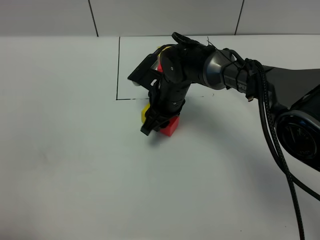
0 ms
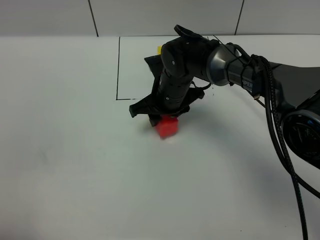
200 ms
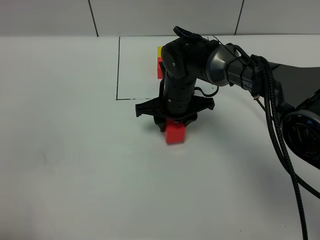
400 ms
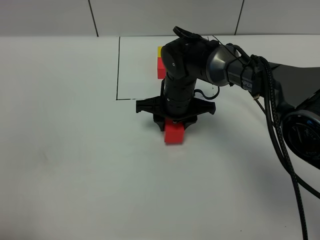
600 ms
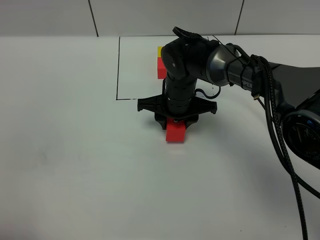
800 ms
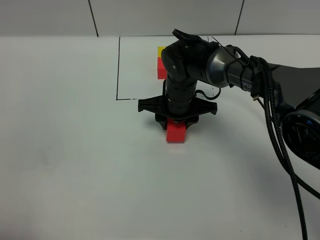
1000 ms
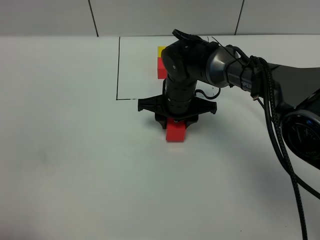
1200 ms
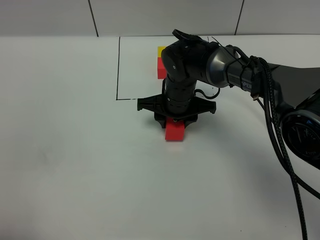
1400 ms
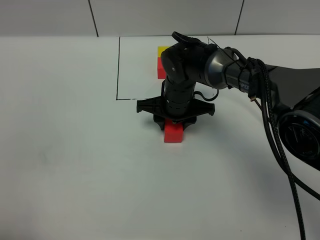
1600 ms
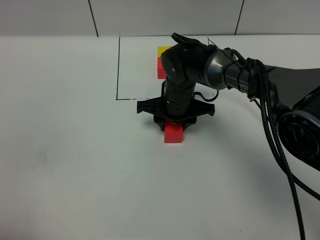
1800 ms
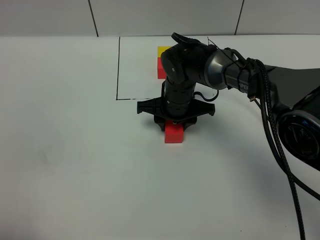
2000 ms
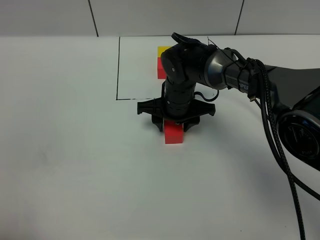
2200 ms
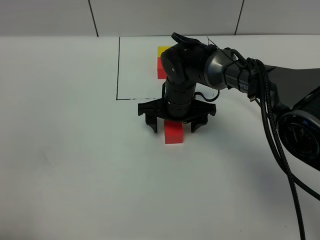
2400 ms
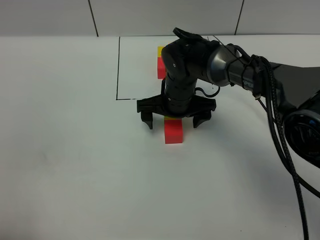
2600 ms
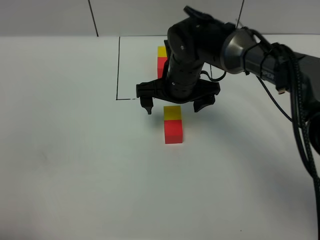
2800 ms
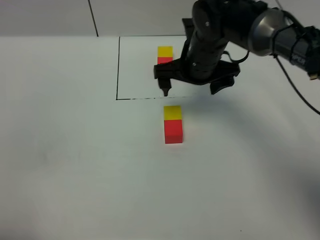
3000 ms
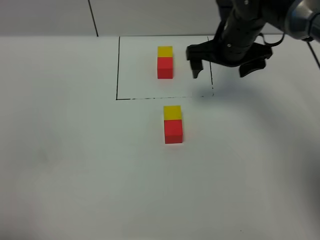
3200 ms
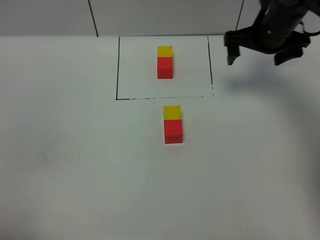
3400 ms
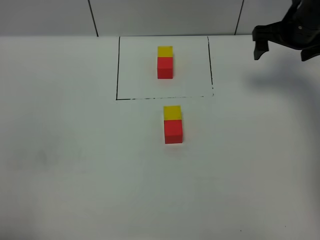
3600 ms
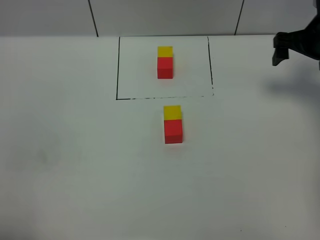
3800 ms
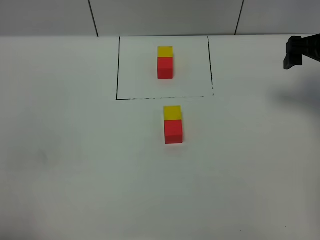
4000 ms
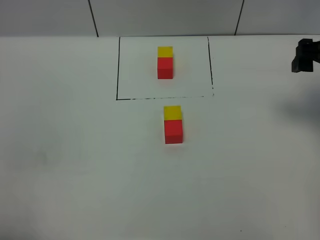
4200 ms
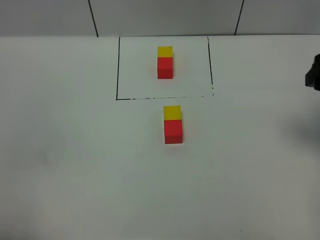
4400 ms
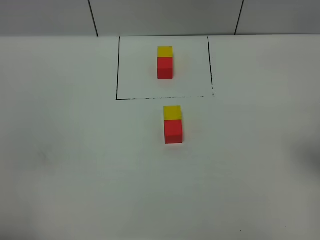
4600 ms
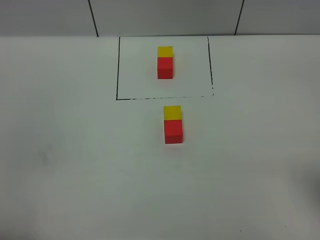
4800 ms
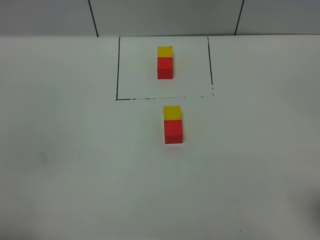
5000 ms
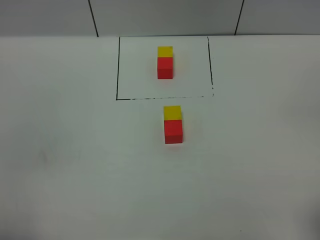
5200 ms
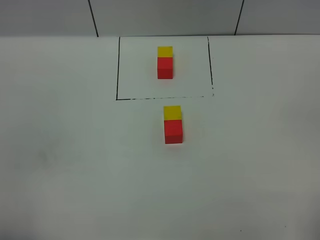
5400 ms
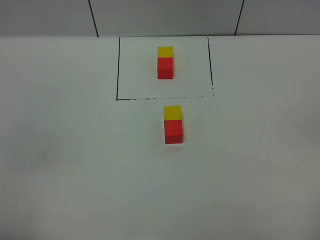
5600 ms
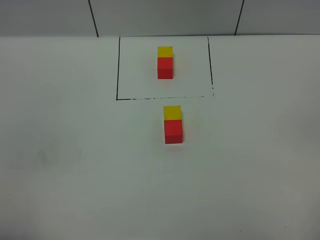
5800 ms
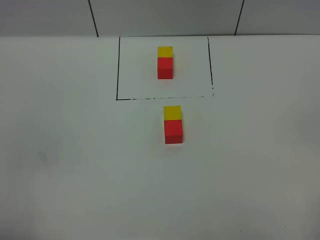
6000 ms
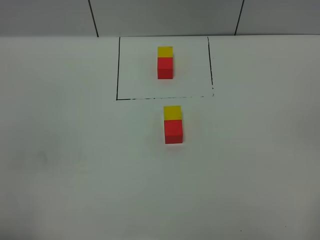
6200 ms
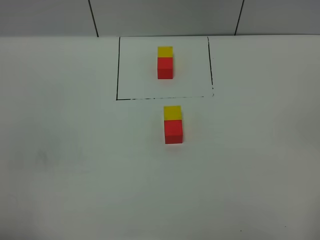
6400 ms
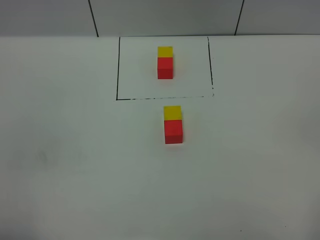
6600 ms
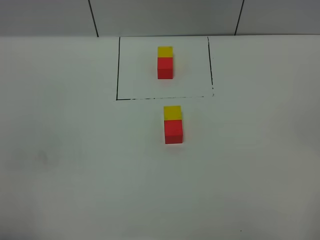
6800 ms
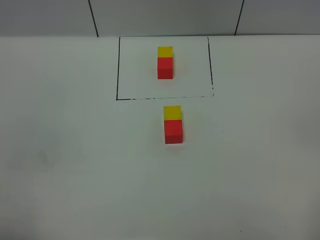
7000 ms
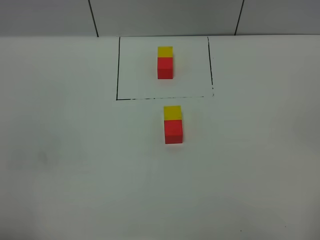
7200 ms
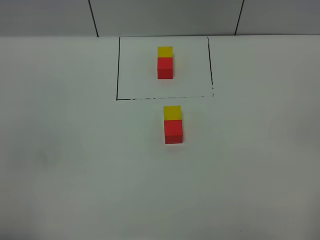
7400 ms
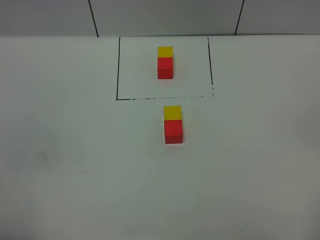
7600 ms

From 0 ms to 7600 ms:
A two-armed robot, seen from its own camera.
Task of the whole recording: According to the building block template in front, assemble the scattered blocks together.
Step, from 0 ms to 2800 ms: Adjust the pose of the building blocks.
From 1600 ms to 3000 ms: The right gripper moves upward and to the right, about 10 cm, and opens.
From 3000 ms to 4600 ms: The right gripper moves to the right, backward and upward, about 30 cm.
From 6000 ms to 7600 ms: Both grippers stay put.
